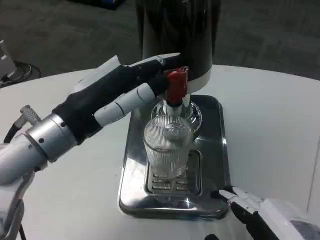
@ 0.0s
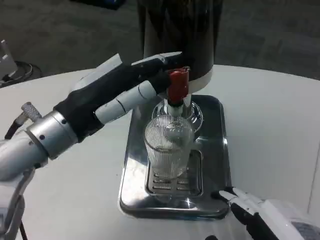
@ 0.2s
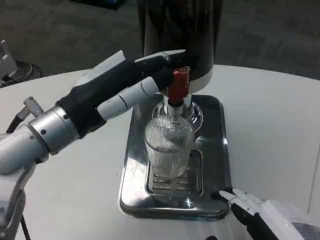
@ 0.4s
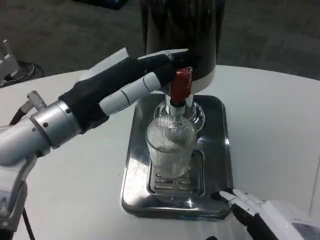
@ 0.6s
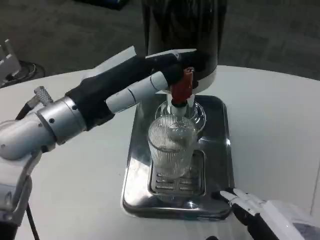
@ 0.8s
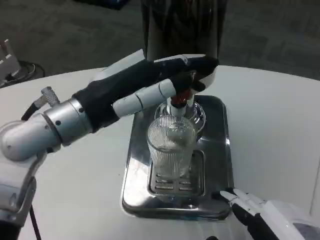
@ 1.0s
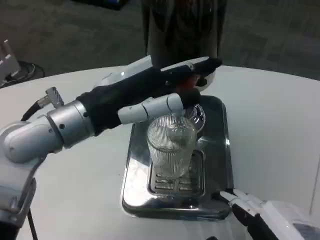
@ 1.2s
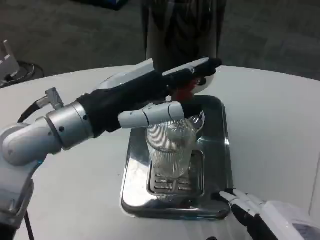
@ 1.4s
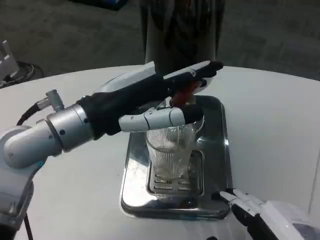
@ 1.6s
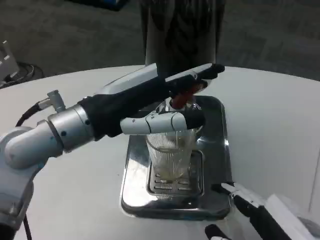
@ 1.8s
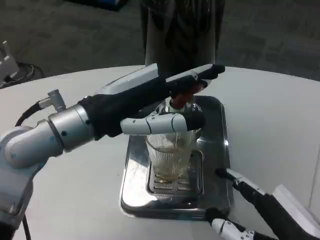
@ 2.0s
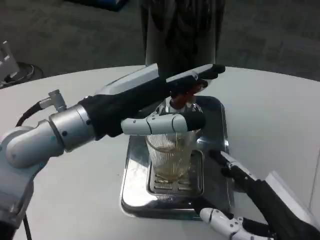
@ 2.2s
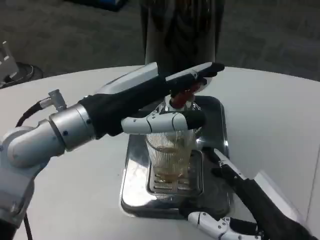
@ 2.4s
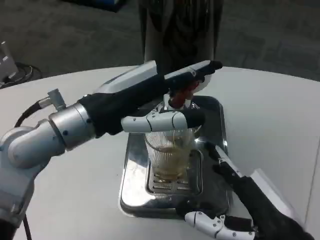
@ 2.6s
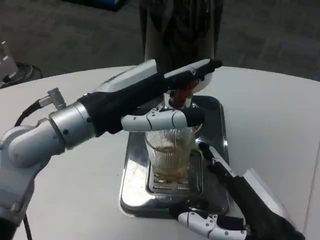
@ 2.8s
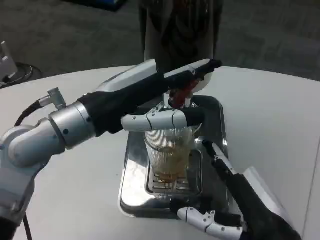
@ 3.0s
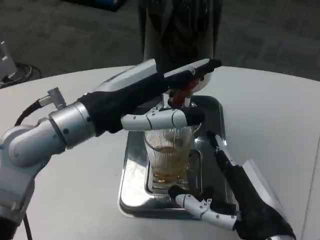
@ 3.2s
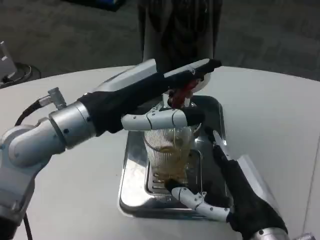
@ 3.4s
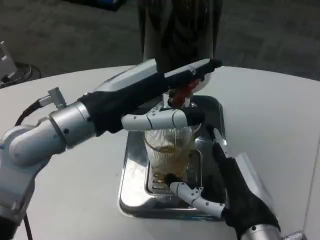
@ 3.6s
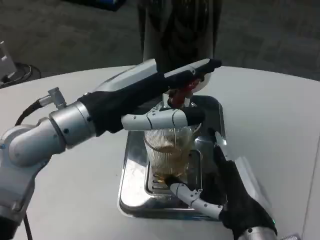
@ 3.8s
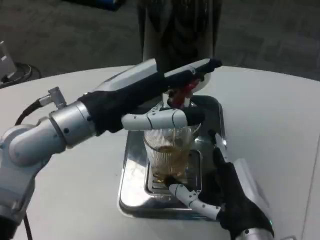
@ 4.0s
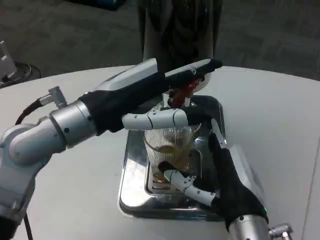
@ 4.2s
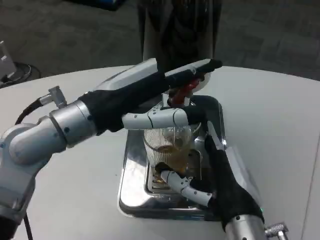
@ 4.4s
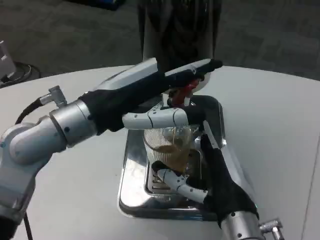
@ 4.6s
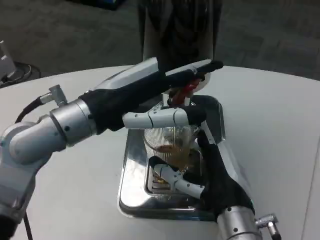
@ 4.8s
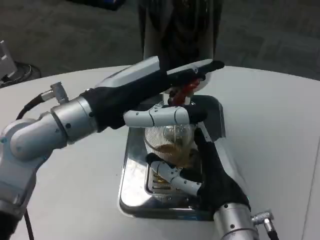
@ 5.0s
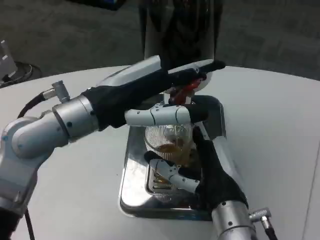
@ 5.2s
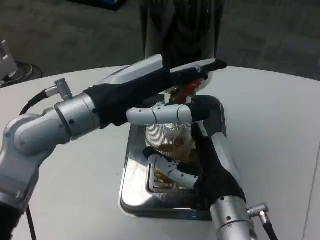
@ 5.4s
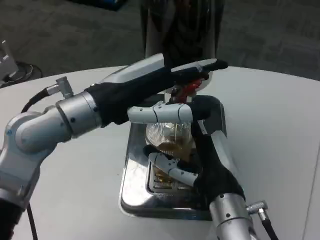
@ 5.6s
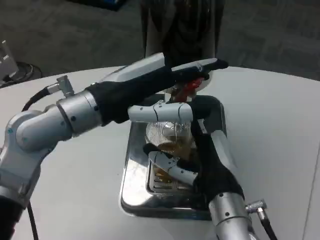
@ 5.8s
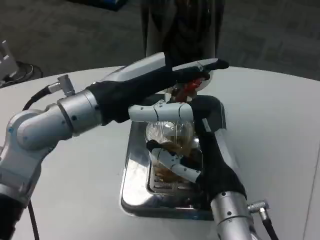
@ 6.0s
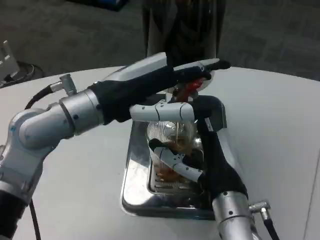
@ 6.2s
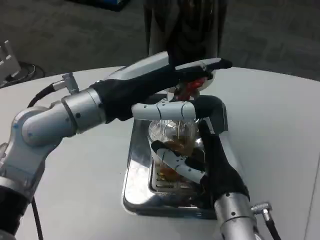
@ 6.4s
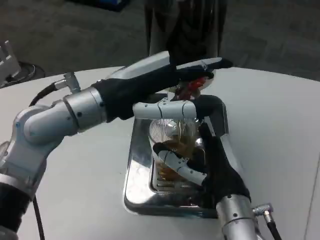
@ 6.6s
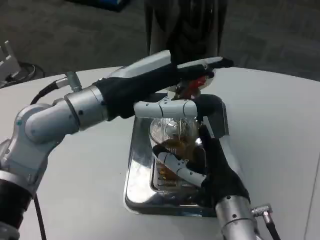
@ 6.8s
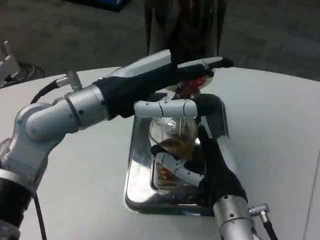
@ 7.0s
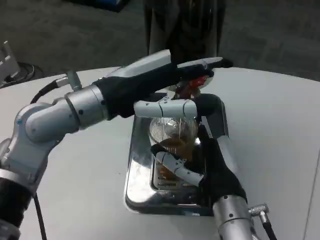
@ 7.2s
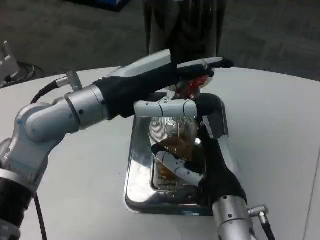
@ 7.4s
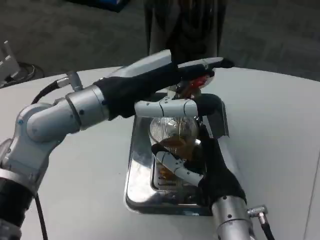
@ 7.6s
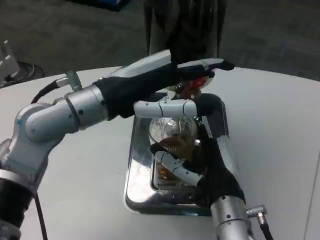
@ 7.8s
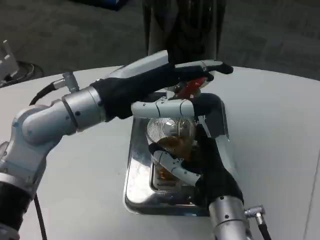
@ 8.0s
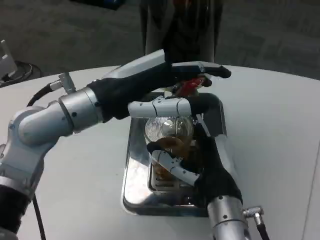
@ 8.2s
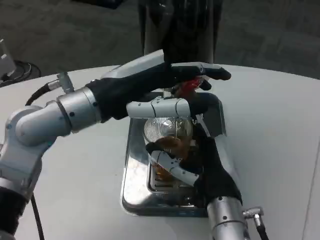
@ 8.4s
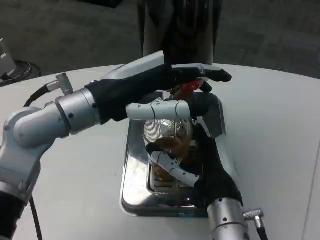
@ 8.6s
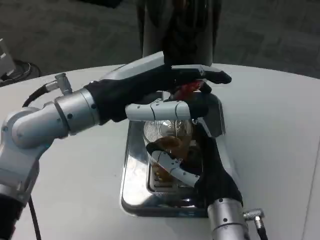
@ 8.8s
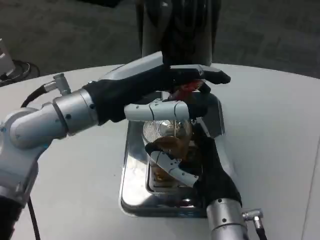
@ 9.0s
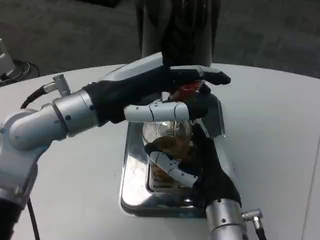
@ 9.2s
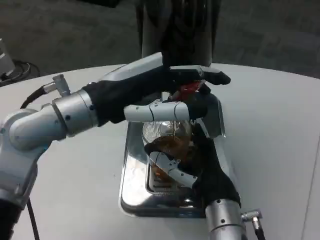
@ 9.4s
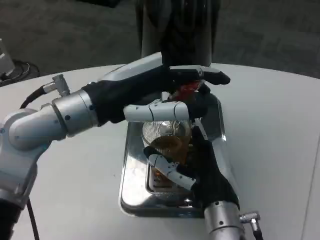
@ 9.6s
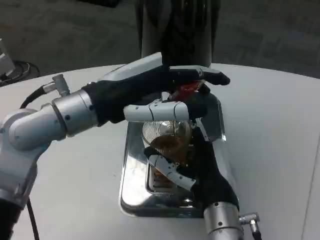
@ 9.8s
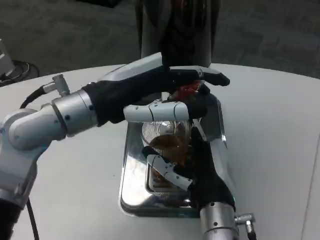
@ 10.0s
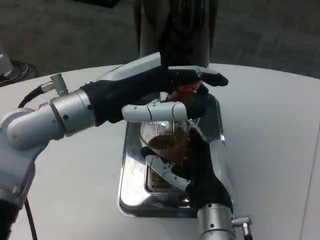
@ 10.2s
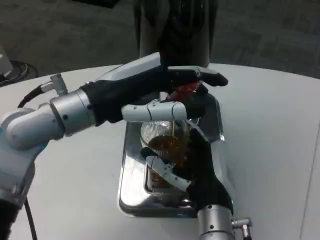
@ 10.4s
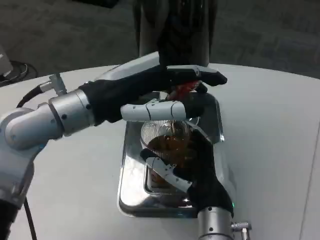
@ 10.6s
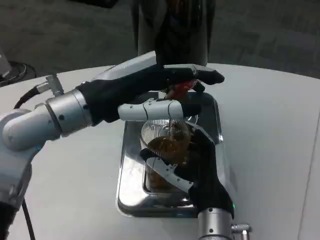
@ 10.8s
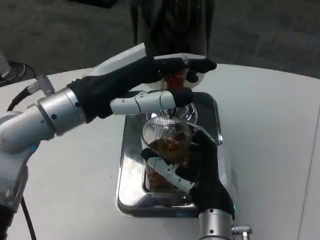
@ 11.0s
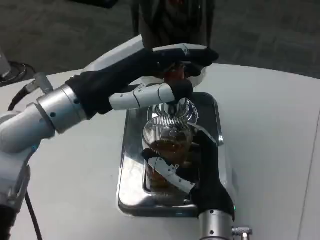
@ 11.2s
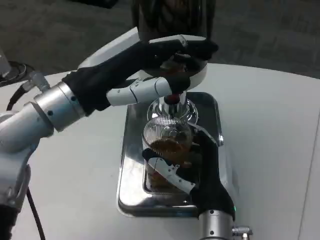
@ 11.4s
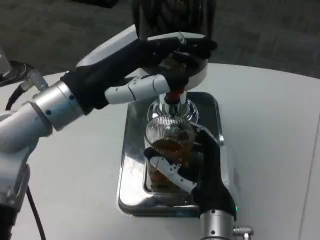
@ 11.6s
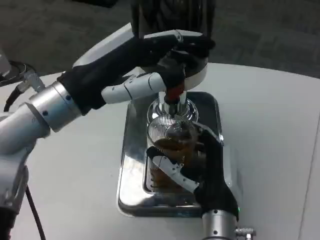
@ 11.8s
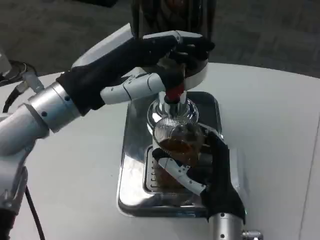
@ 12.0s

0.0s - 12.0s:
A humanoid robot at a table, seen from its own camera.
Task of the whole recording: Grasp the cup under the faucet to collect the drink, then remove the cup.
1.6s - 3.0s: The right hand travels forward by approximately 5 cm.
3.0s - 4.4s: The right hand goes approximately 5 cm forward.
6.0s - 7.6s: The hands make only small movements.
9.0s - 10.4s: There are only small adjustments of the hands.

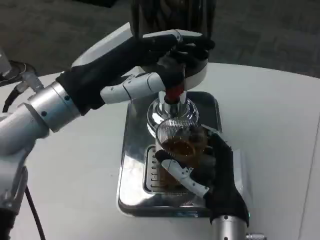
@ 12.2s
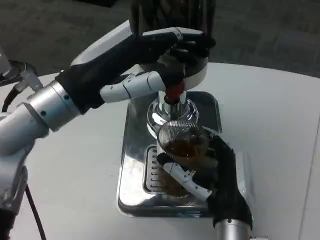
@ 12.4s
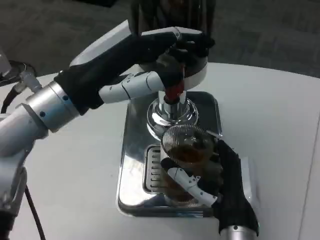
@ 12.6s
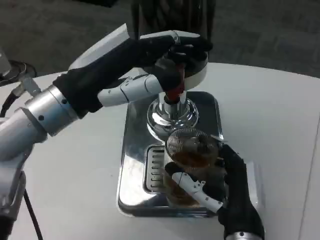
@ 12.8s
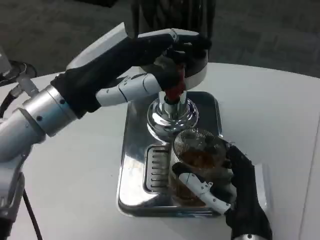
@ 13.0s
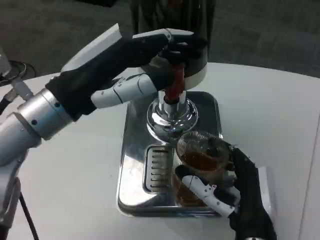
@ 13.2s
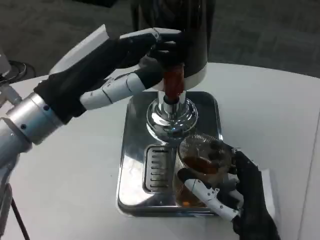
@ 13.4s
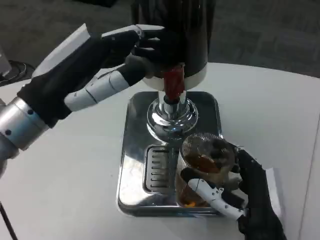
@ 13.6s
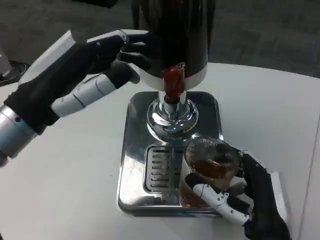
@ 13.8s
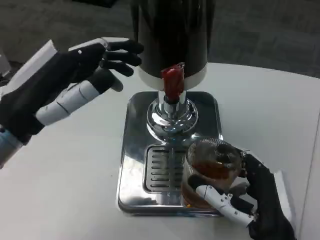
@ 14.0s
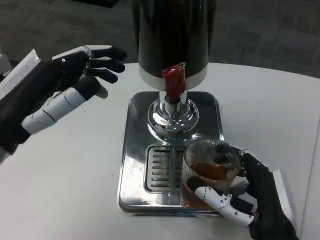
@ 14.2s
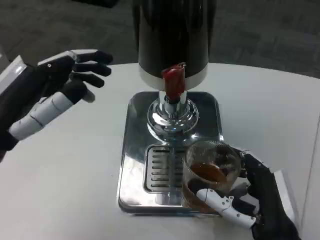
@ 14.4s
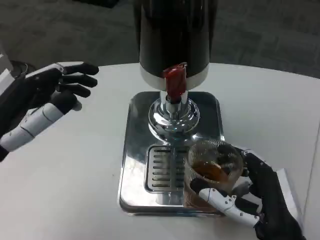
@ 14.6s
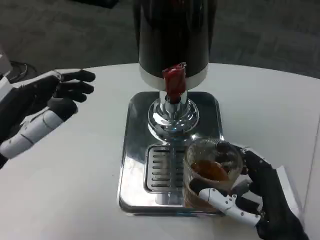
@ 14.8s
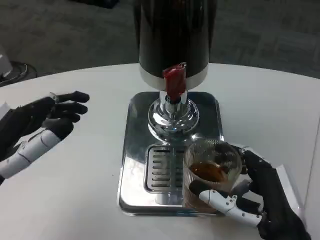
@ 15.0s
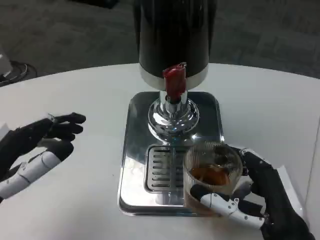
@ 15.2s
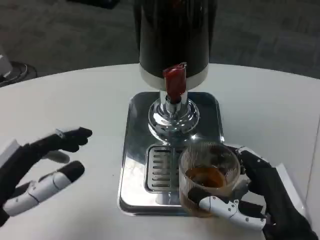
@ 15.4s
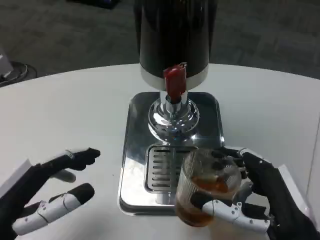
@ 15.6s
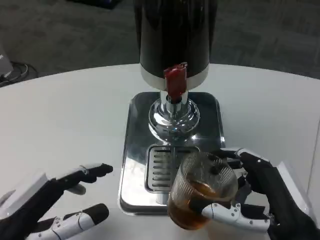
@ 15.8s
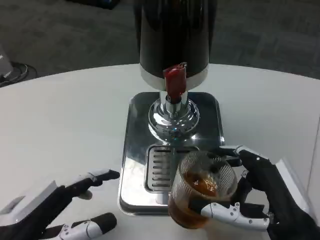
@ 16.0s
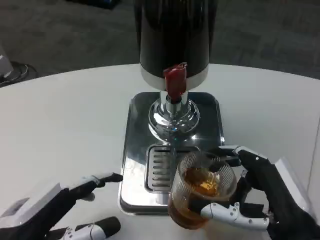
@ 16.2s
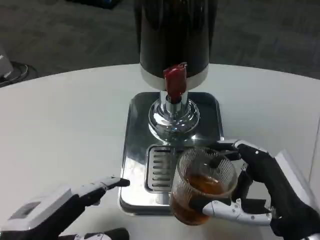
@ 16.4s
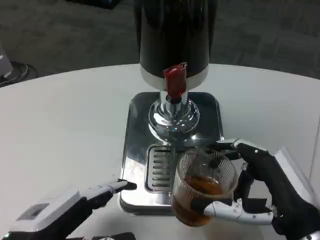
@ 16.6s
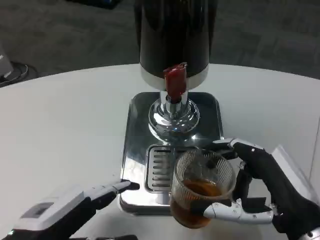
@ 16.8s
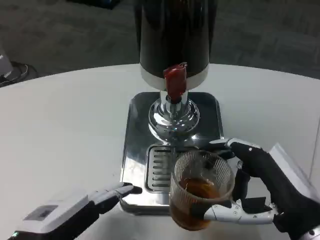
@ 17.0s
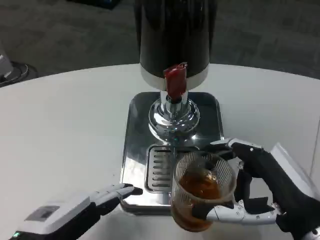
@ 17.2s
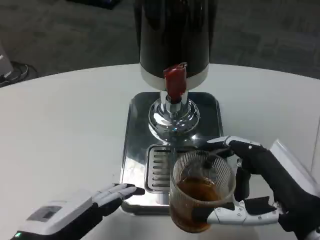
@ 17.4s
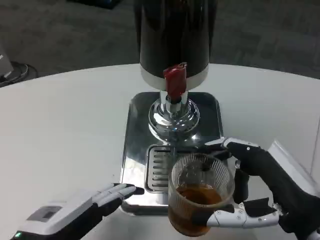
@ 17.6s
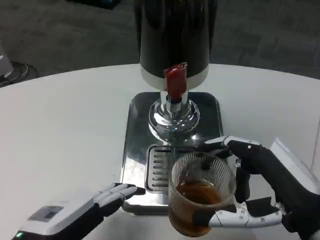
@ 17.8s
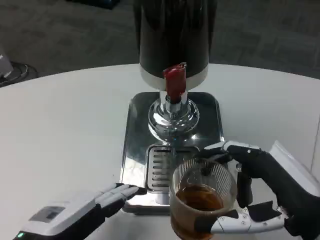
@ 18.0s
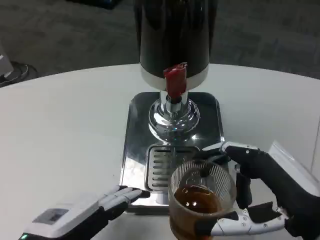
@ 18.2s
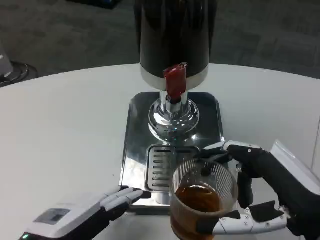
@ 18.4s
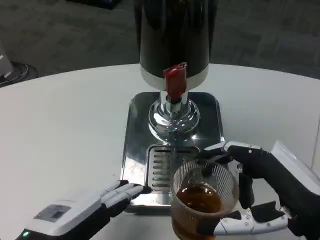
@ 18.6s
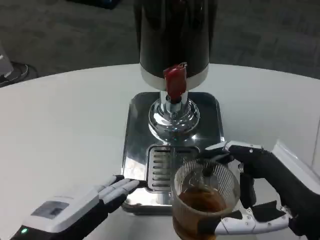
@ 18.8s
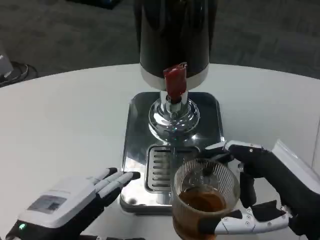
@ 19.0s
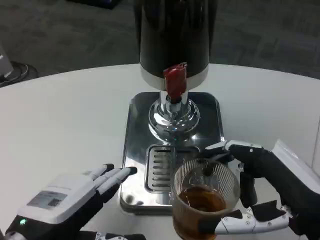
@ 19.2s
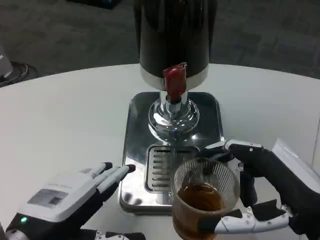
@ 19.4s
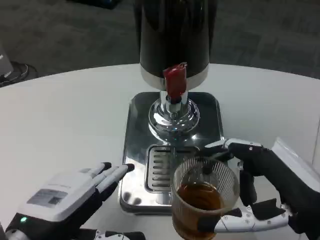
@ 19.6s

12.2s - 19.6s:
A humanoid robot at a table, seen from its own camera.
Task of the whole recording: Grasp the cup under the faucet to collect the drink, then remove the cup.
12.2s - 13.6s: The right hand moves approximately 5 cm.
13.6s - 15.2s: The left hand moves downward, backward and to the left, roughly 15 cm.
15.2s - 16.6s: The left hand shifts by approximately 5 cm.
16.6s - 18.2s: The hands move only a little.
18.2s - 19.6s: The hands move only a little.

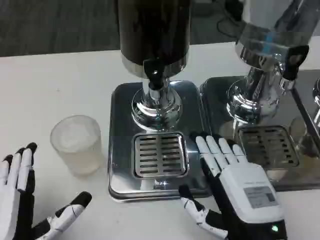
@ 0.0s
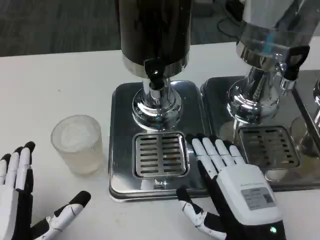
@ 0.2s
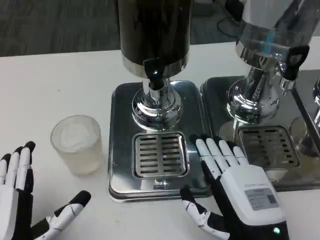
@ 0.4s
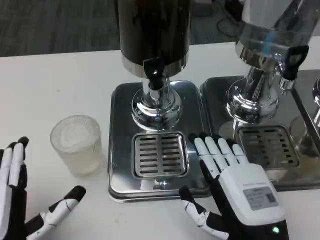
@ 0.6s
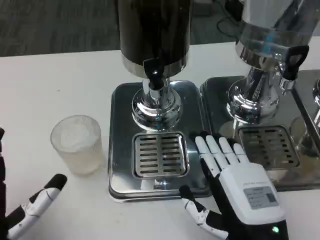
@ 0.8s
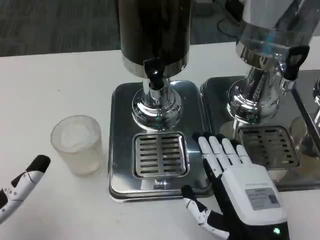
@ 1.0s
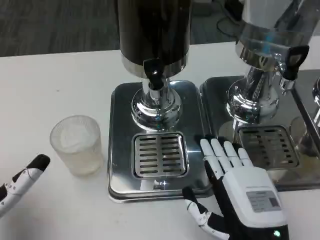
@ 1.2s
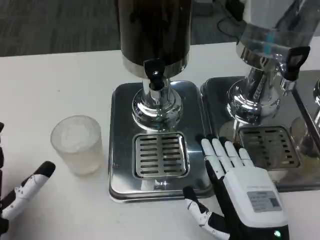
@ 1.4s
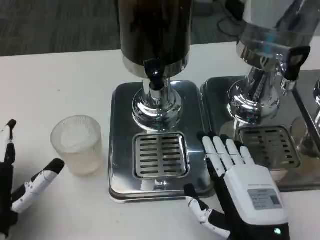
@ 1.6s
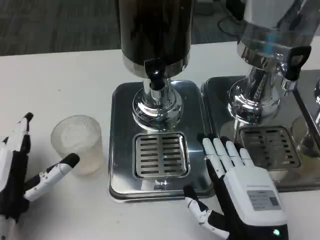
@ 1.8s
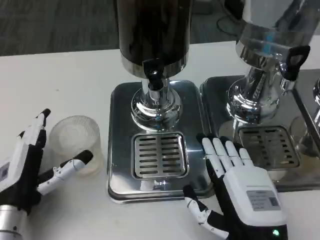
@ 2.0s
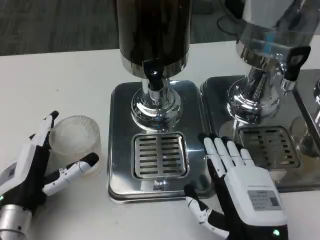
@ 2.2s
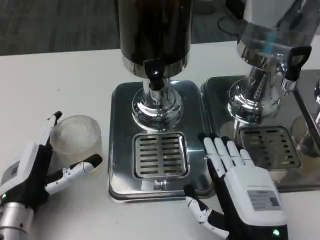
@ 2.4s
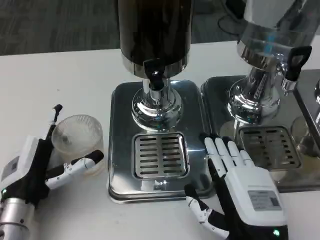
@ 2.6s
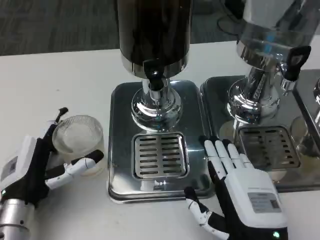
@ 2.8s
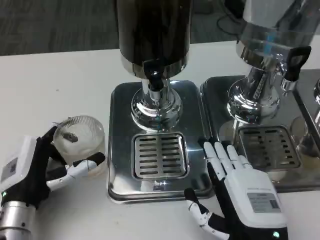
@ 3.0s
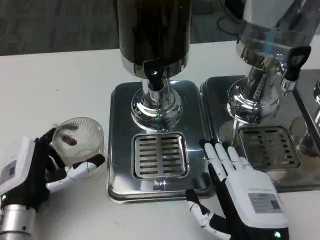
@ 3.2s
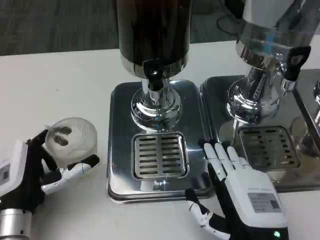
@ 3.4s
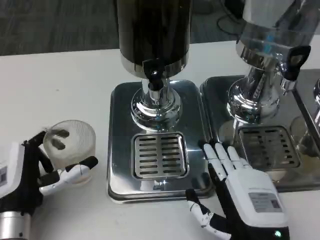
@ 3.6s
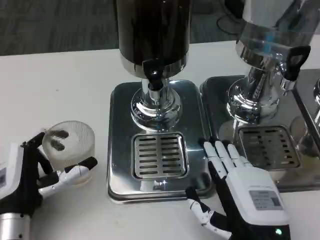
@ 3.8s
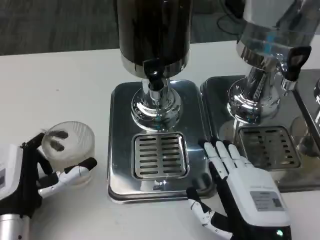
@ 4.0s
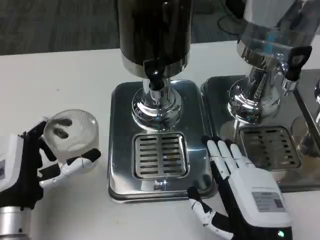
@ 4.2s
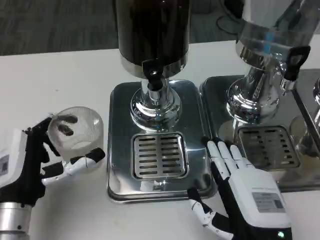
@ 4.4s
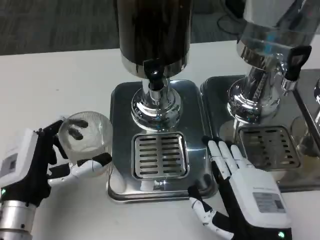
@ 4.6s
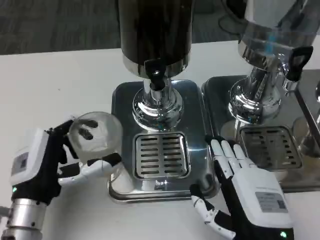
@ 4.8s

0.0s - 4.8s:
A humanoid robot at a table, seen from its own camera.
Task of the whole recording: Grasp the cup under the faucet to collect the drink, then remove the cup.
0.0s - 1.6s: The left hand heads forward, covering approximately 5 cm.
1.6s - 3.2s: The hands stay close to where they were, moving slightly.
